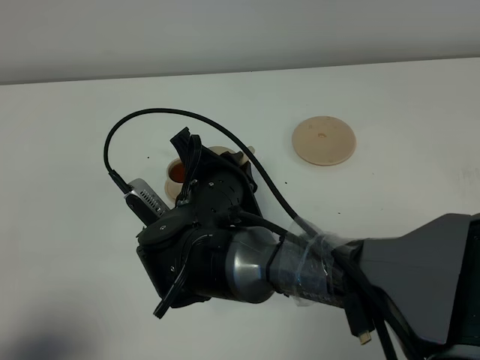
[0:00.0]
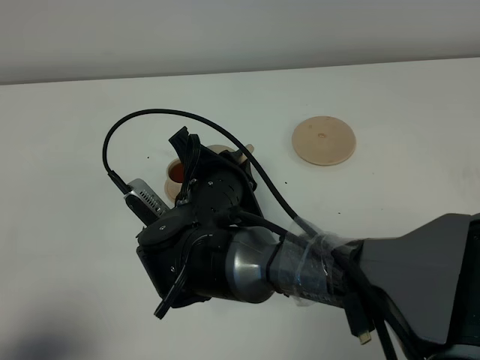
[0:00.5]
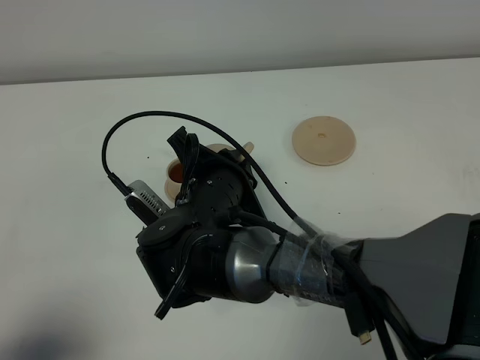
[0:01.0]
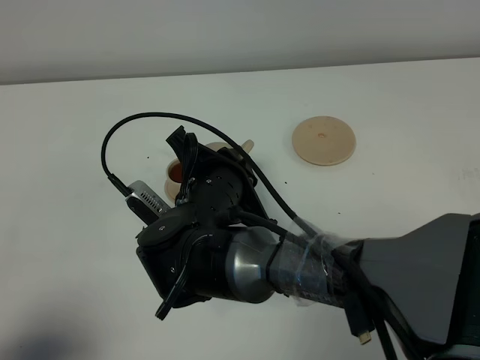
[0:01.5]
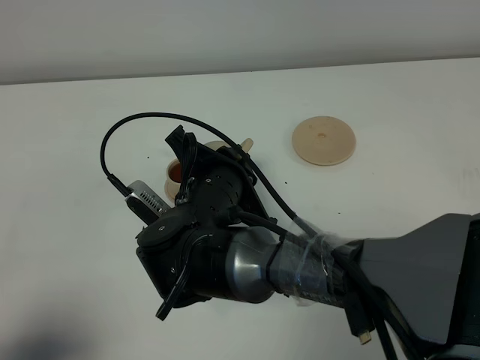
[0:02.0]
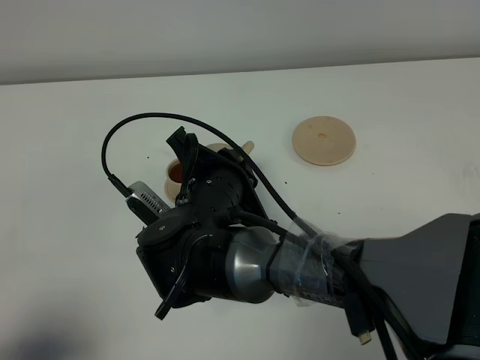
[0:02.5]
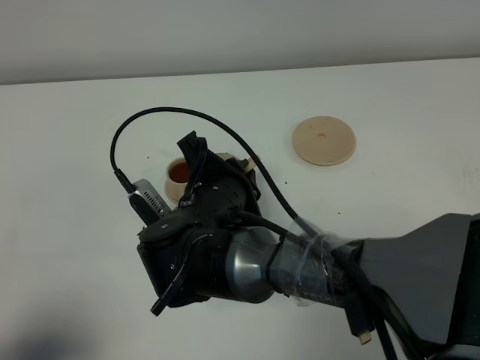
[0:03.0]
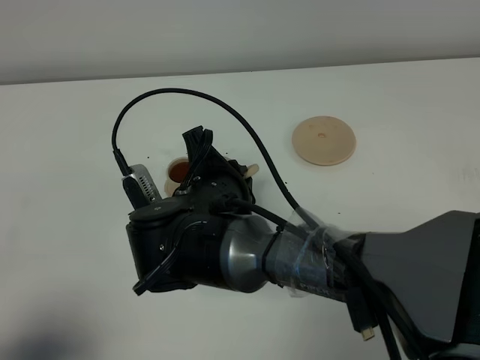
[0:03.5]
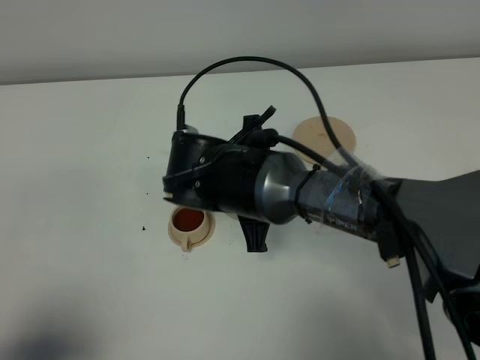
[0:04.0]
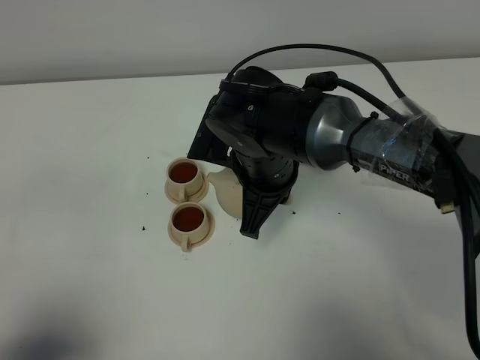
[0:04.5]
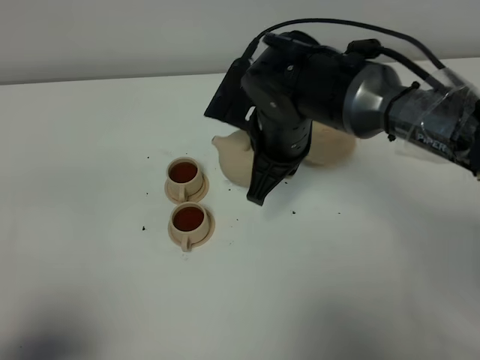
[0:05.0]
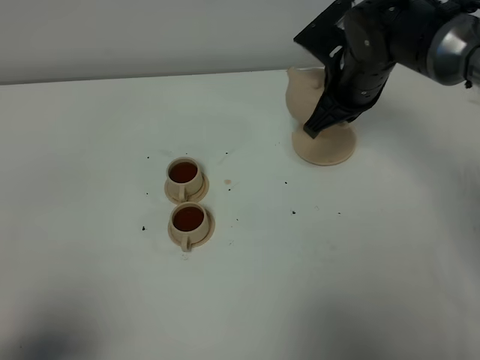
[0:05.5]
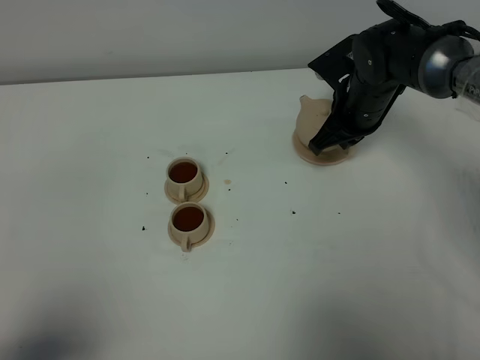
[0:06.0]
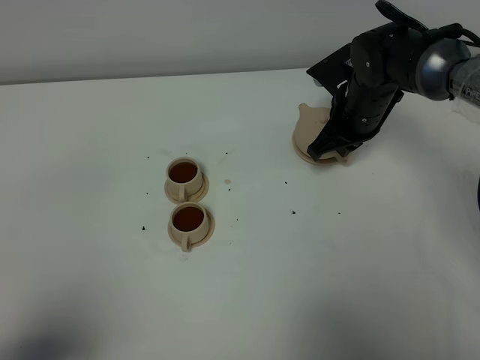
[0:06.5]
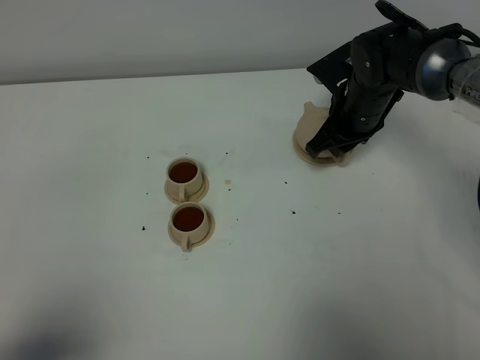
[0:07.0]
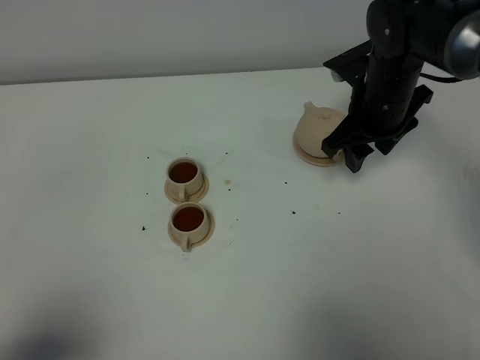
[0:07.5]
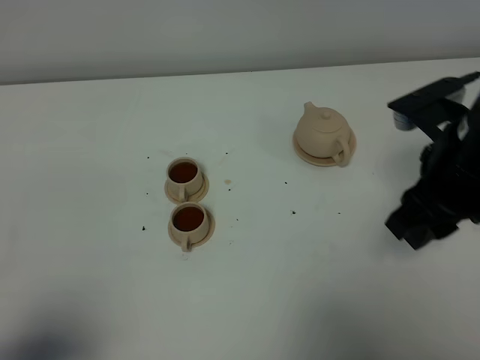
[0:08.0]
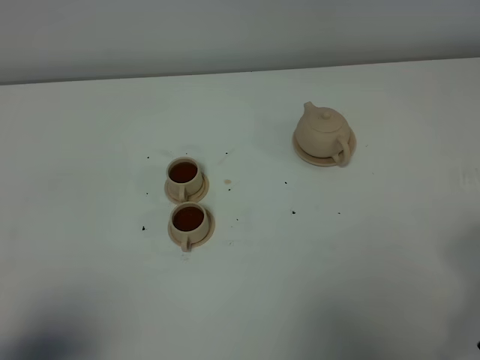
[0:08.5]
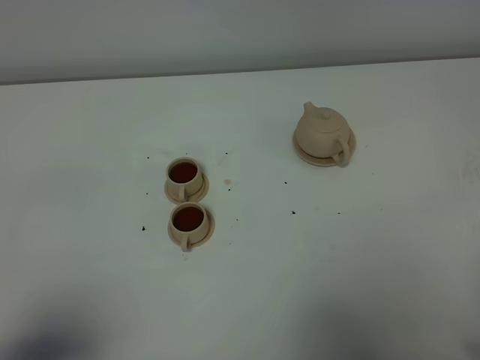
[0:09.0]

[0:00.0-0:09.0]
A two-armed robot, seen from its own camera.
Task of the whole recording: grasp the brown teapot and pour the tea into the two brown teacups one by one, put the brown teapot back in its original place.
Step, 0:00.0 to 0:04.0: Pour tea into the teacup with the right gripper.
0:00.0 to 0:02.0: The grippers make only small movements.
0:02.0 to 0:04.5: The right gripper is displaced forward and to the right by about 10 cm.
0:04.5 to 0:07.0: The right gripper shifts some 20 cm forward and to the right, and opens up.
0:07.0 to 0:09.0: The right gripper goes about 40 cm backward and to the right.

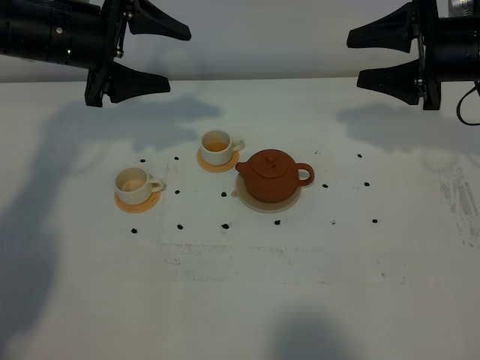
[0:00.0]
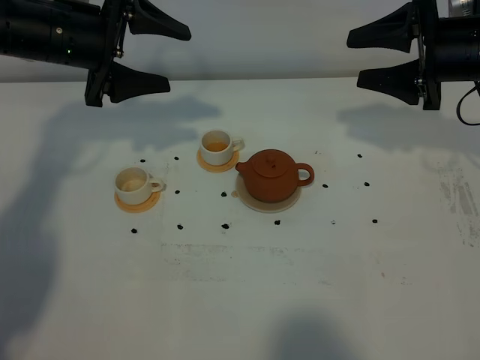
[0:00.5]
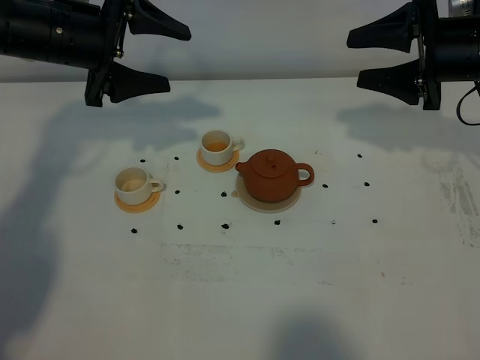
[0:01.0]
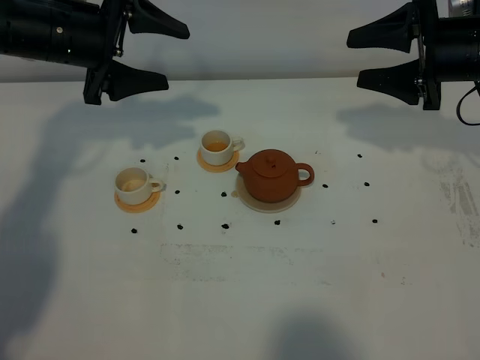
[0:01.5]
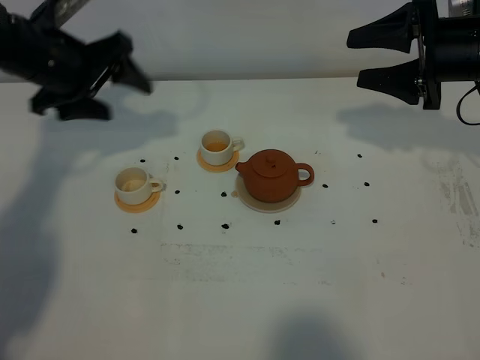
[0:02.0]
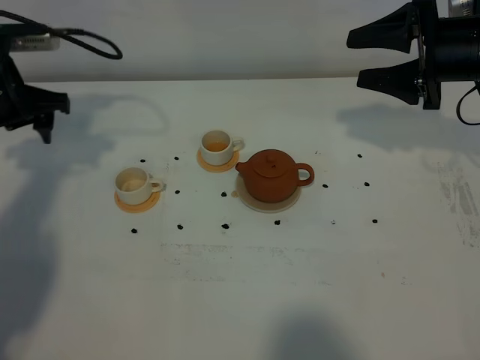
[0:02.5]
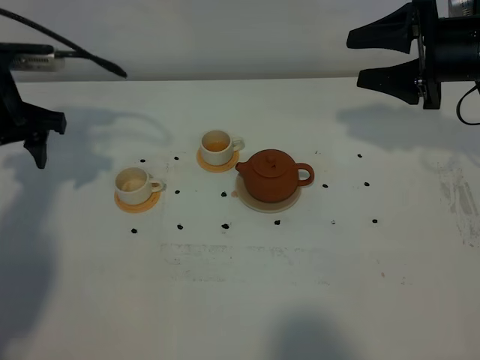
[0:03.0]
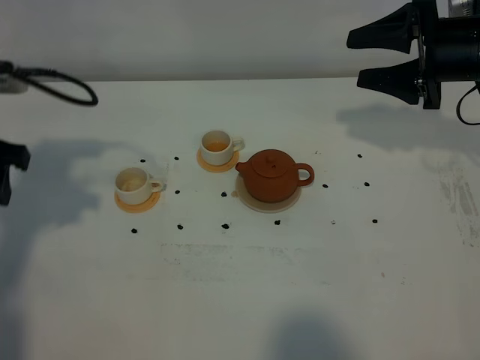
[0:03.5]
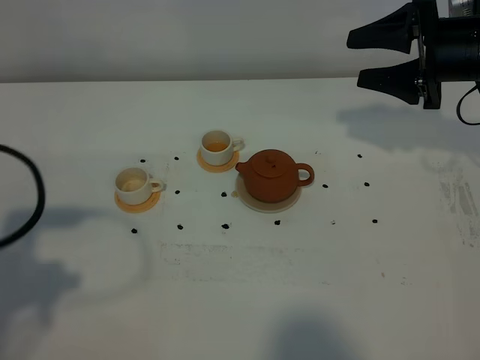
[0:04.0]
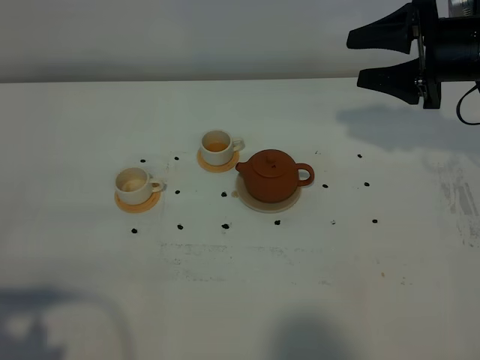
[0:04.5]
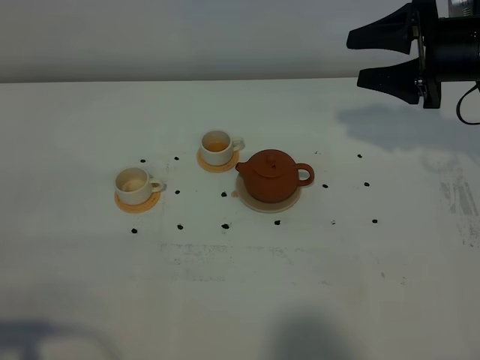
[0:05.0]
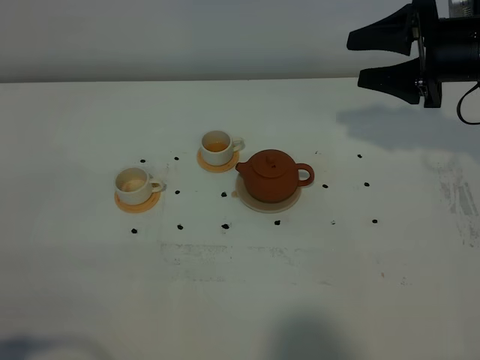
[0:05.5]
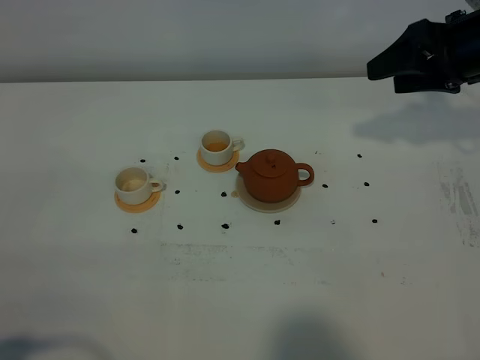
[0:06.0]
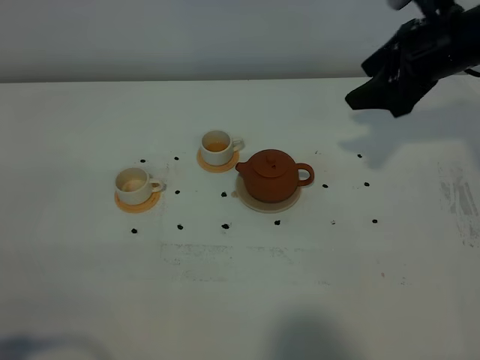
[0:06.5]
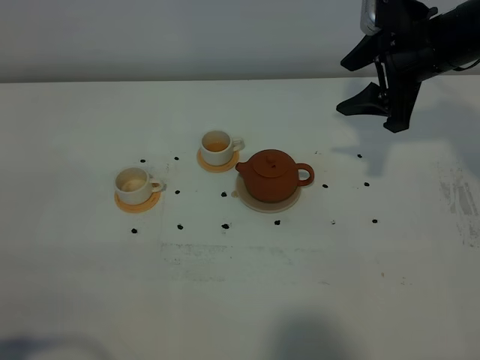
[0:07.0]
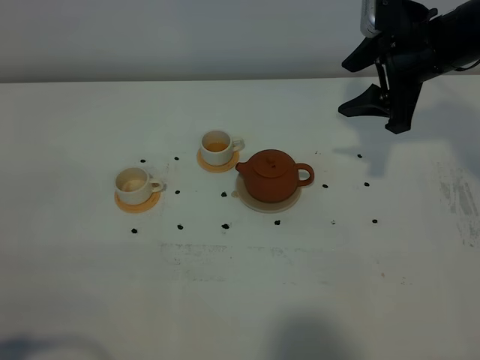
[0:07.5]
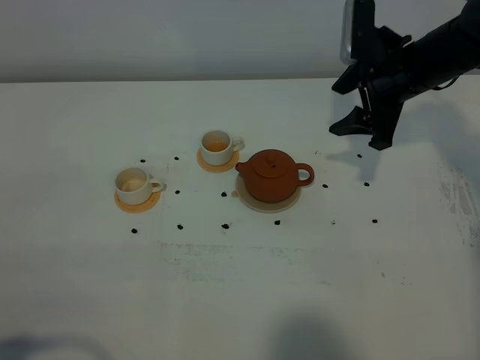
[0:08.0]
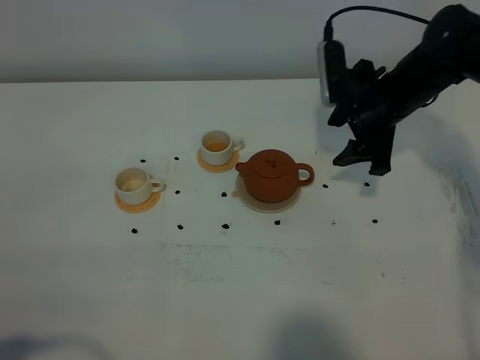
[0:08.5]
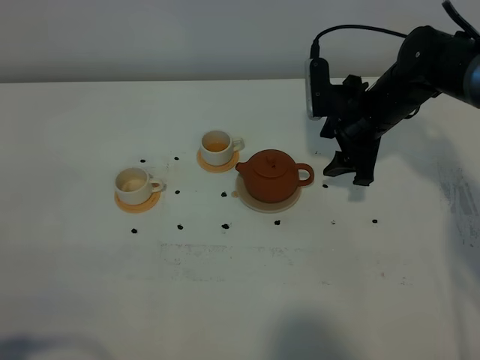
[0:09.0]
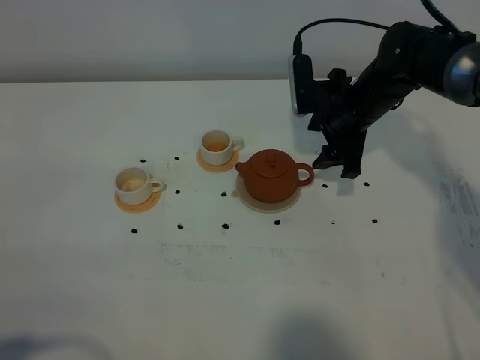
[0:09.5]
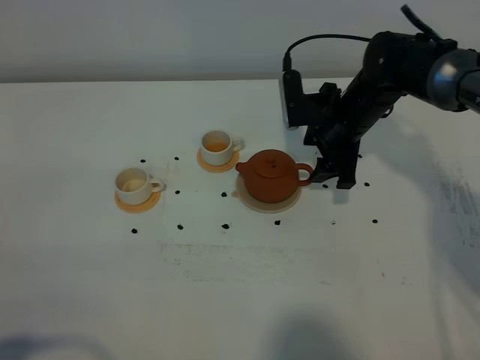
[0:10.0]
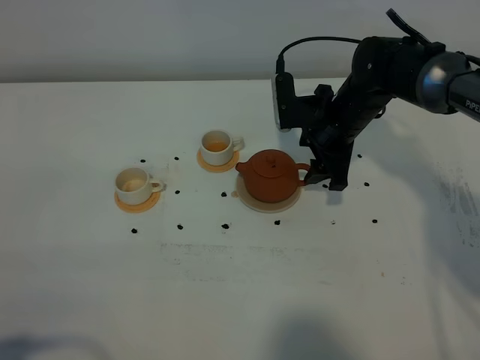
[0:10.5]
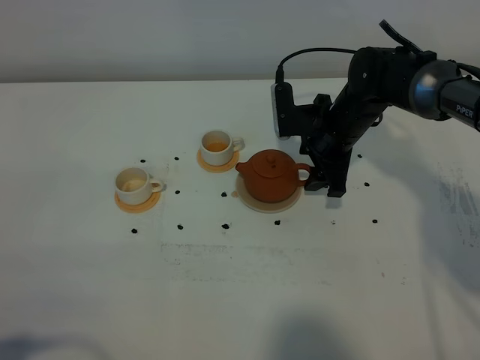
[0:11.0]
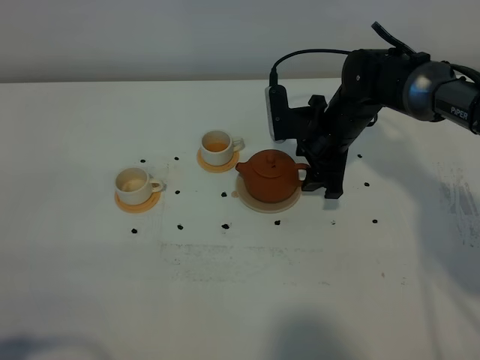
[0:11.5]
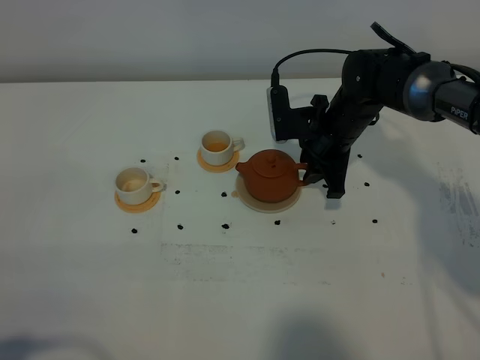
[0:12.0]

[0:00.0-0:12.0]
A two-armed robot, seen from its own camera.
Task of the whole recording: grasp the brown teapot and pour the tea into the two white teacups one by one, put the brown teapot back in its original place.
0:02.0 to 0:04.0: The left gripper goes some 25 cm backward.
0:04.0 to 0:06.0: The left gripper is displaced backward by about 15 cm.
0:06.0 to 0:08.0: The right gripper is displaced to the left and downward by roughly 10 cm.
0:08.0 to 0:10.0: The right gripper goes approximately 10 cm downward and to the left.
0:10.0 to 0:12.0: The right gripper closes.

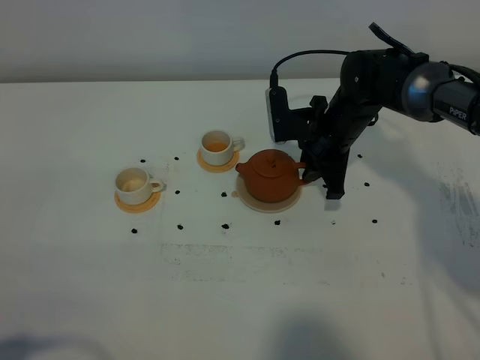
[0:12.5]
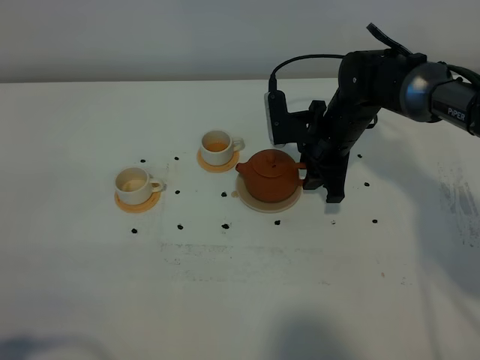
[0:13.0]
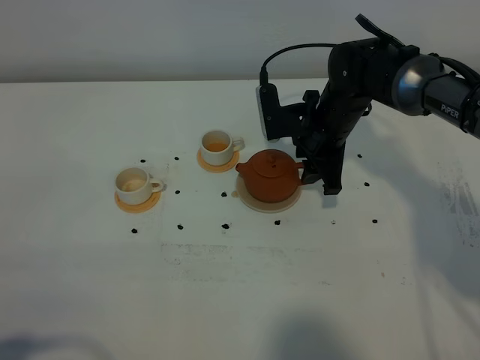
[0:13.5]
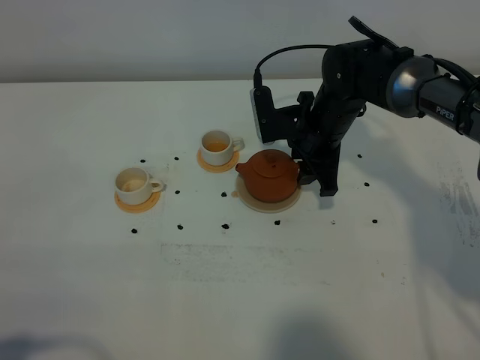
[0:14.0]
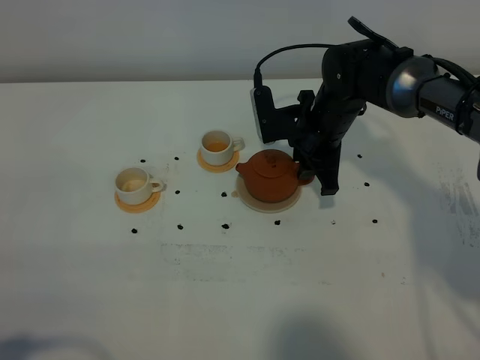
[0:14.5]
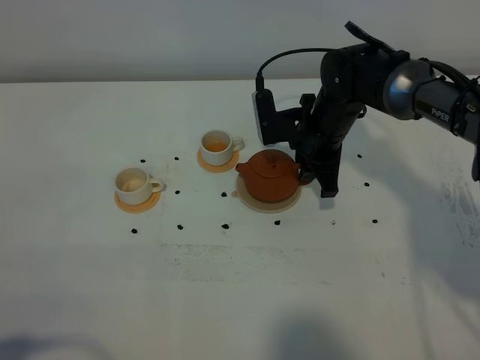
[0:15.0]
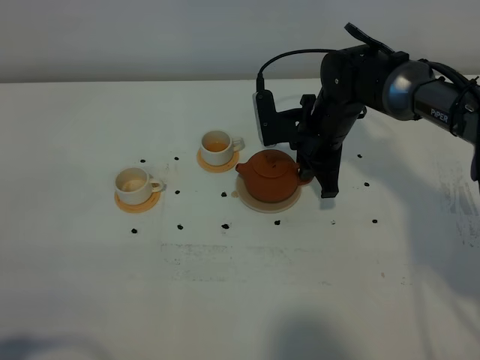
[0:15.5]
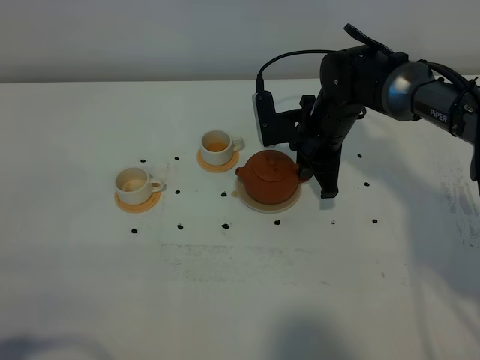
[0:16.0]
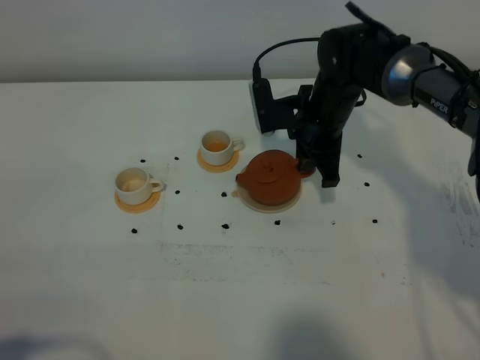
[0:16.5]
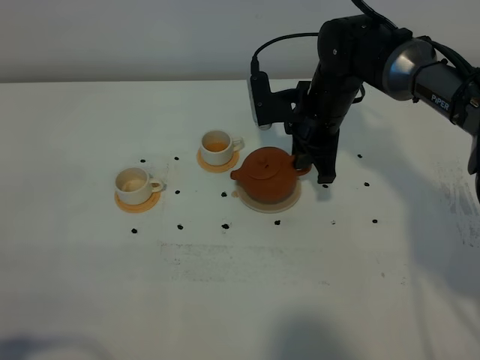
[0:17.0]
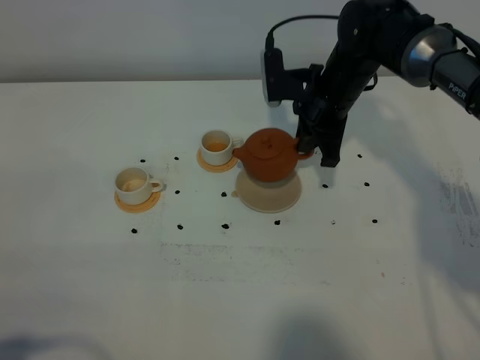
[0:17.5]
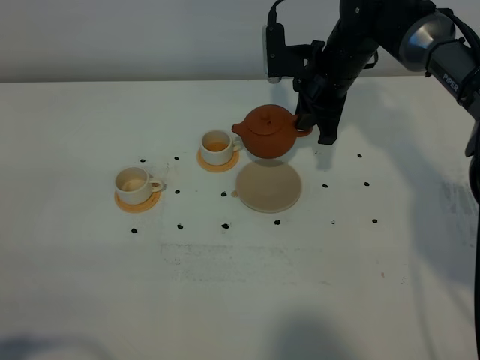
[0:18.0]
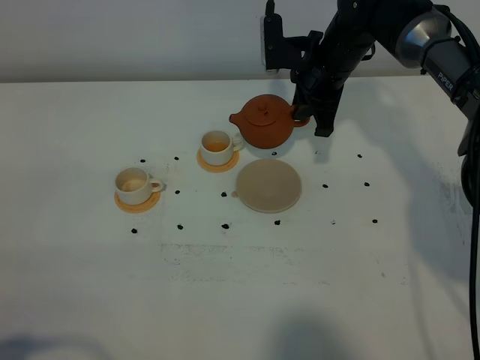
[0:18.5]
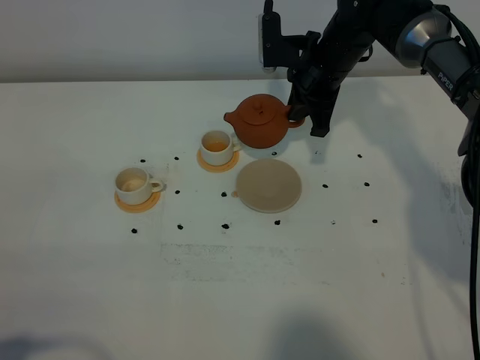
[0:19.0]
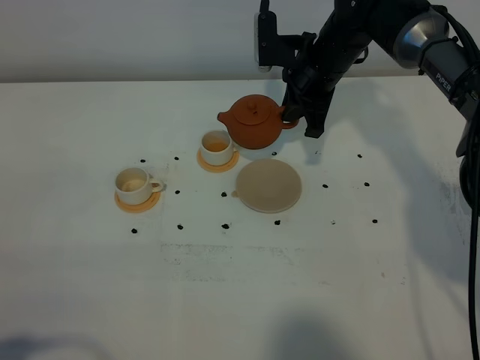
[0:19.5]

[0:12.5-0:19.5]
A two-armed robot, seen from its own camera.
Task of the whole recording: grasp the brown teapot and pour the tea into the two white teacups one by one, put the brown teapot back in its original place.
Step, 0:12.5 to 0:17.0: Pick up the teapot with the right gripper.
0:12.5 to 0:14.5: The grippers make only small movements.
0:14.5 to 0:16.0: The right gripper closes its fingers.
0:16.0 to 0:17.5: The right gripper goes about 5 cm upward.
0:17.5 to 0:19.5: The grippers stay close to where they were, moving slightly.
